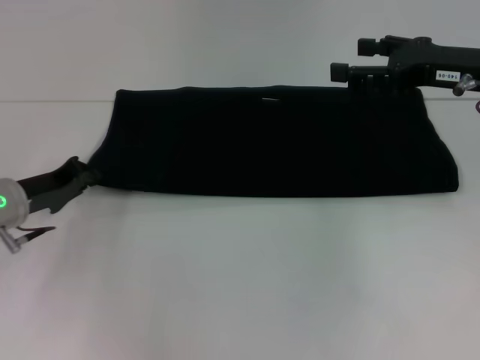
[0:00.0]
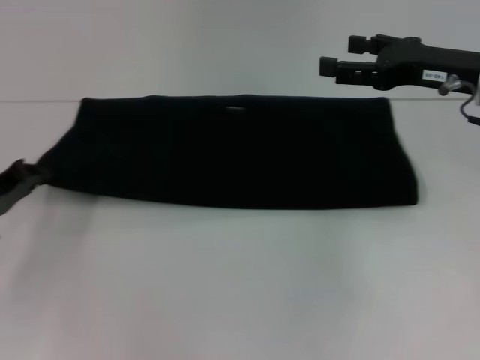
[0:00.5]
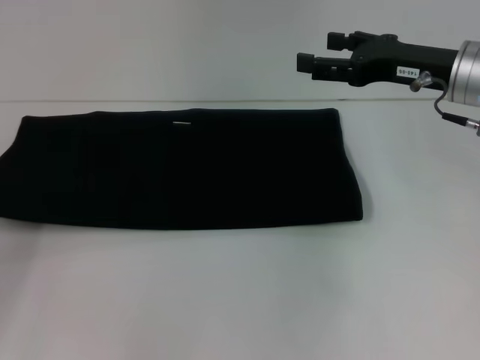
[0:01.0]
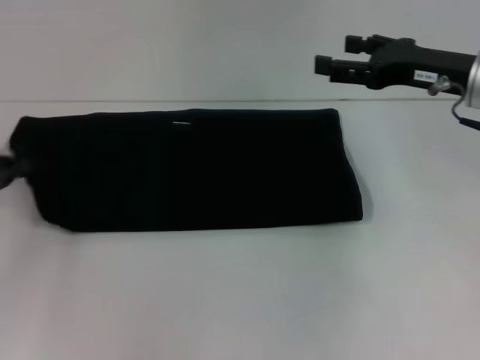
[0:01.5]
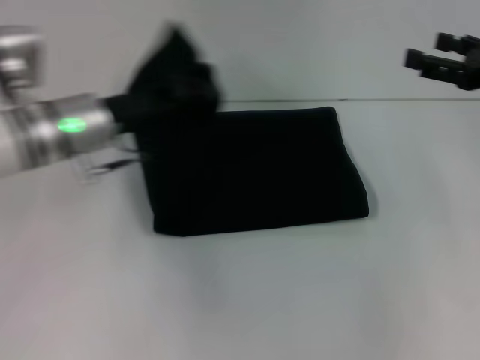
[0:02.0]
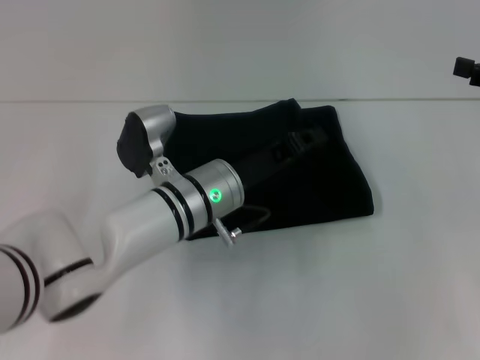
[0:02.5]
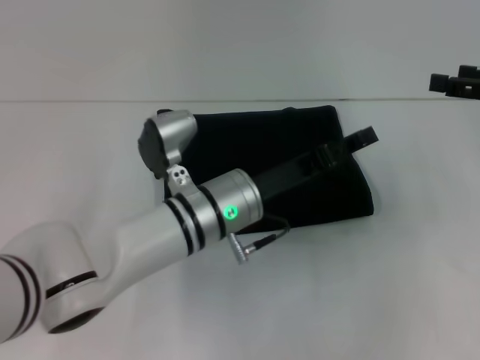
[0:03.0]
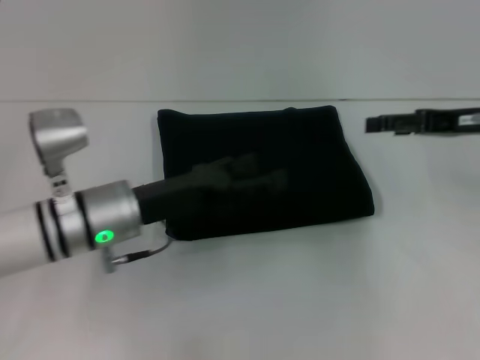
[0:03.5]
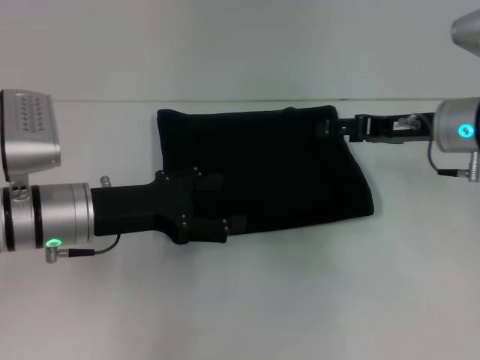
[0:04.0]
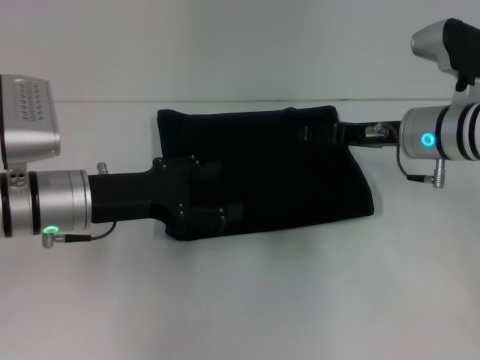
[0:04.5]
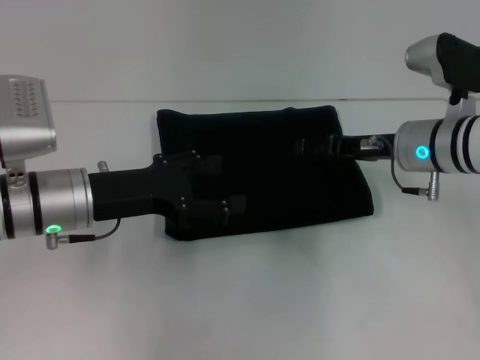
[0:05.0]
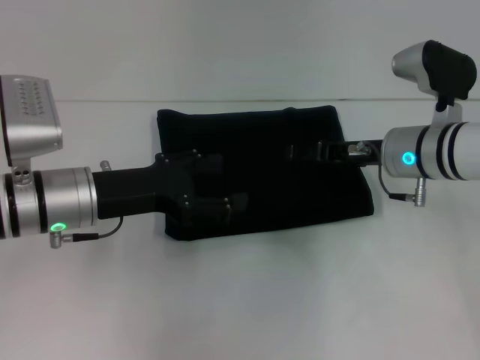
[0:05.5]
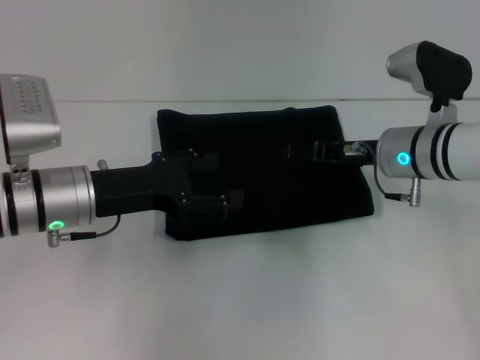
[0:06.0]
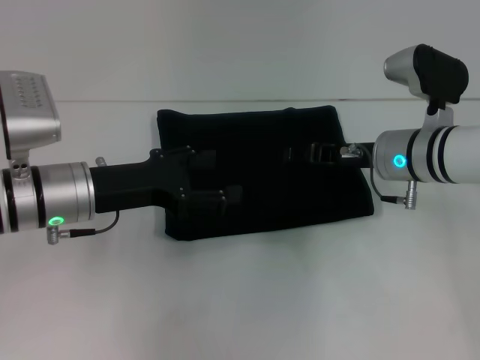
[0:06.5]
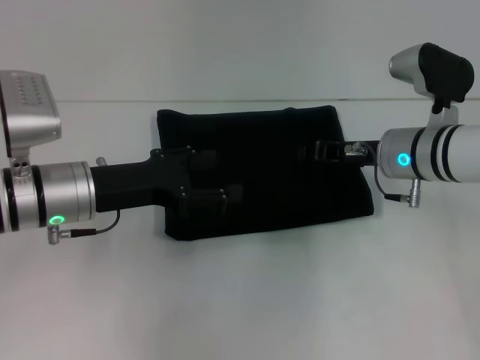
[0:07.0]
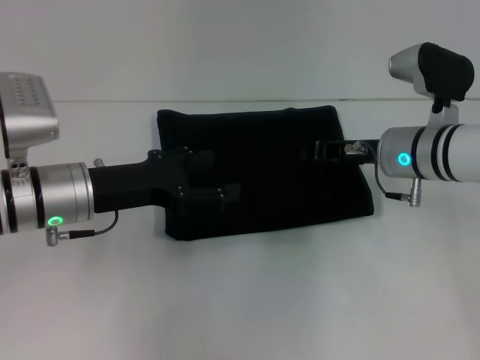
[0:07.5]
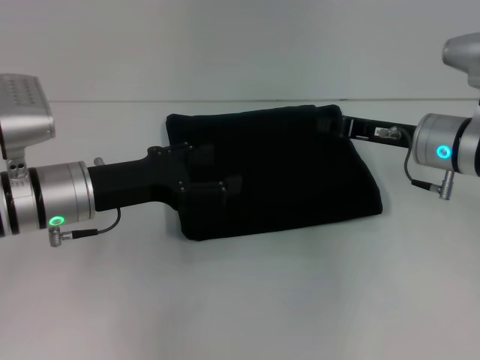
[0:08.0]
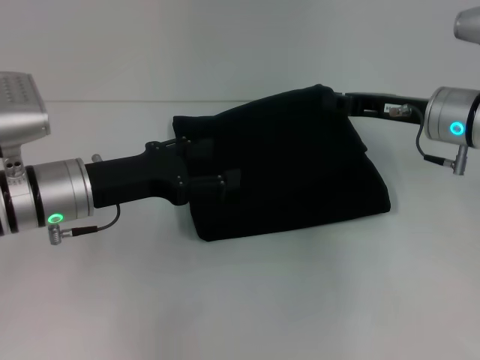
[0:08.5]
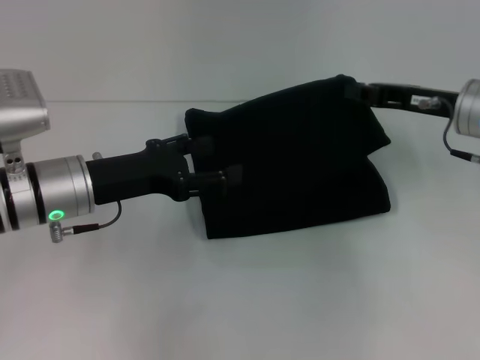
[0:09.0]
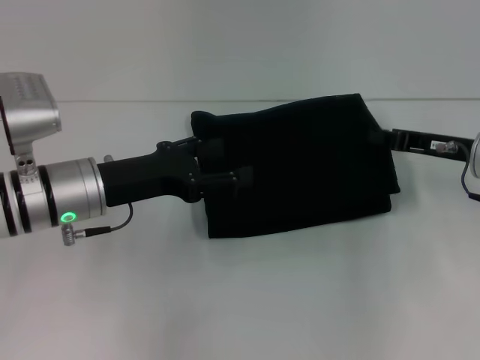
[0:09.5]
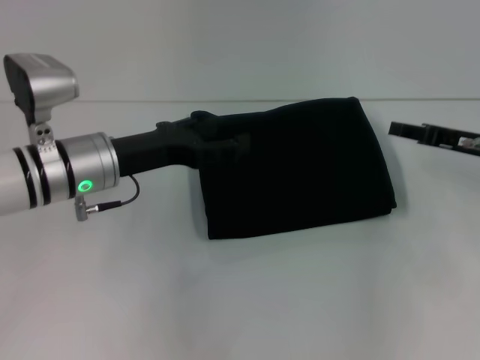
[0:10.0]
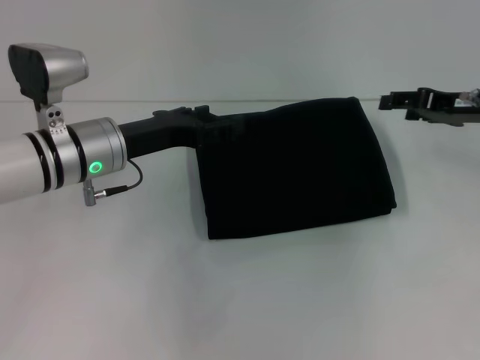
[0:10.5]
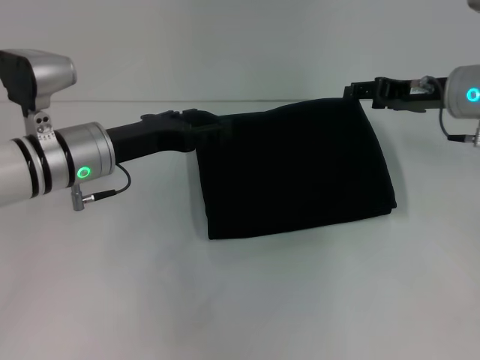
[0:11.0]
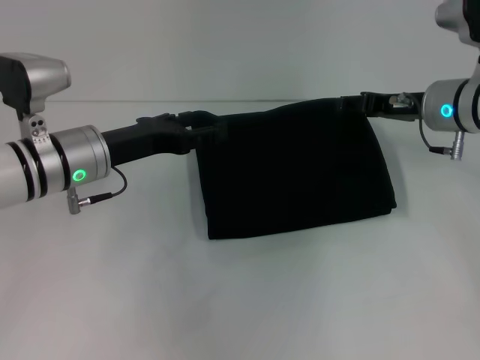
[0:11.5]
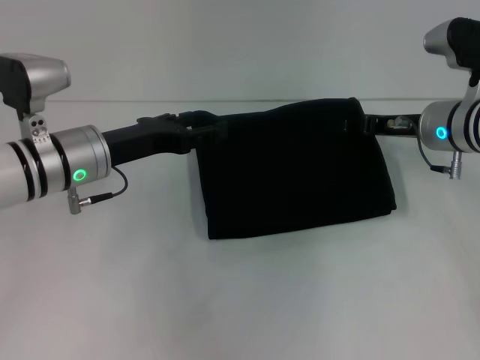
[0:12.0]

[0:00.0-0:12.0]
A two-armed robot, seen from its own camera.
Step, 0:00.0 to 0:02.5: Fold the clothes with your left hand.
0:00.0 to 0:02.0: The left gripper is displaced to the right and upward by approximately 15 cm. Meanwhile the right gripper heads to the right, covering some 5 cm.
0:02.0 to 0:04.0: The left gripper heads backward, covering approximately 5 cm, reaches roughly 15 cm to the right, then returns, and opens; the right gripper is displaced to the left by approximately 10 cm.
0:04.0 to 0:06.0: The right gripper shifts about 5 cm to the left.
0:06.0 to 0:08.0: The right gripper closes up.
0:08.0 to 0:10.0: The right gripper shifts some 10 cm to the right.
0:10.0 to 0:12.0: The right gripper travels to the left by approximately 10 cm, and opens its fingers.

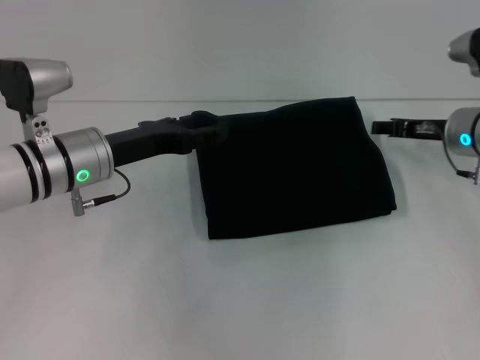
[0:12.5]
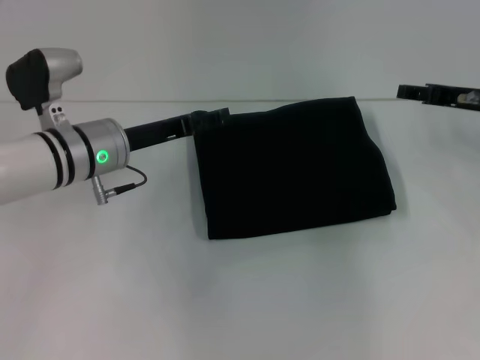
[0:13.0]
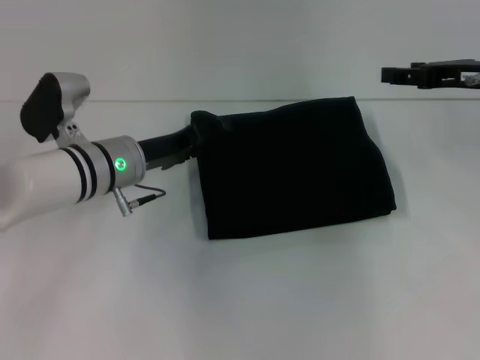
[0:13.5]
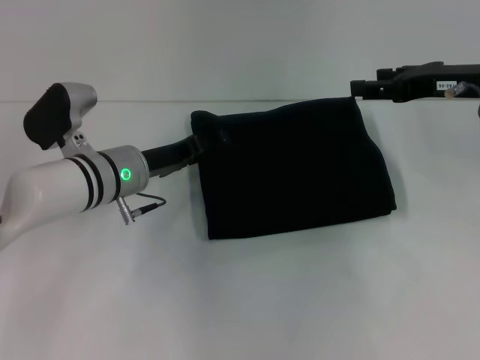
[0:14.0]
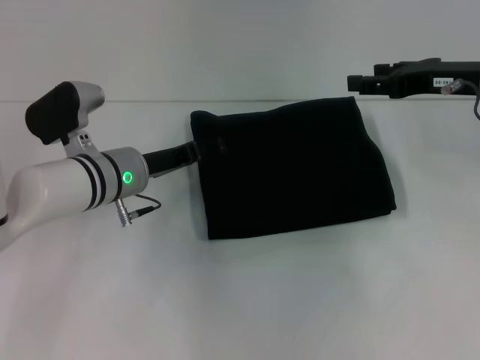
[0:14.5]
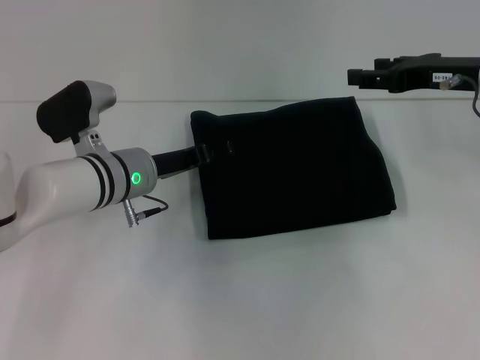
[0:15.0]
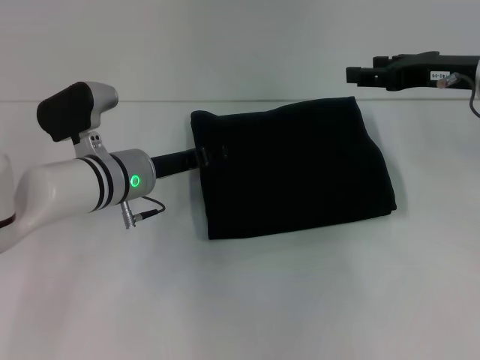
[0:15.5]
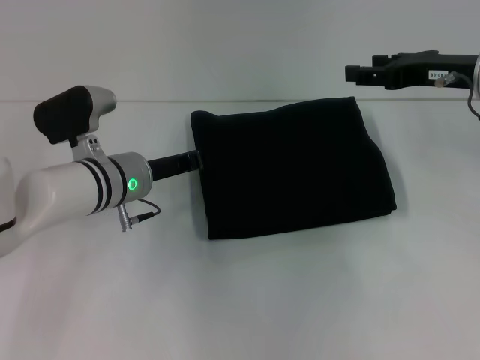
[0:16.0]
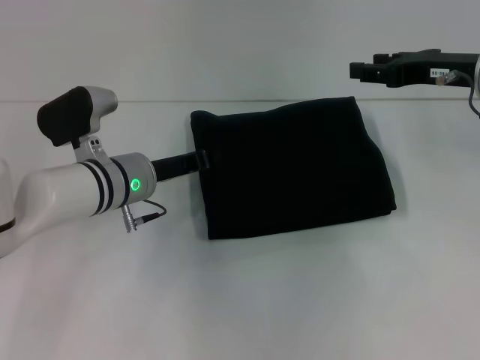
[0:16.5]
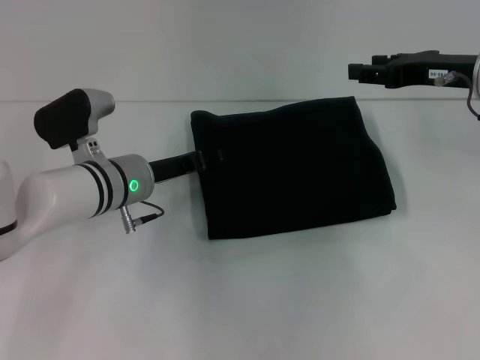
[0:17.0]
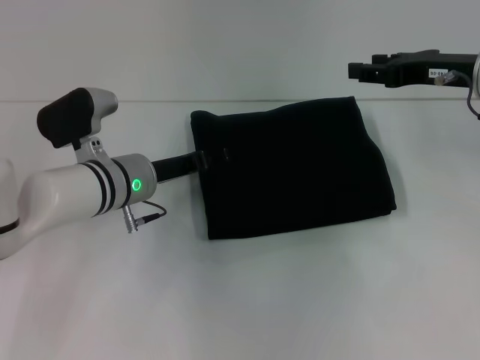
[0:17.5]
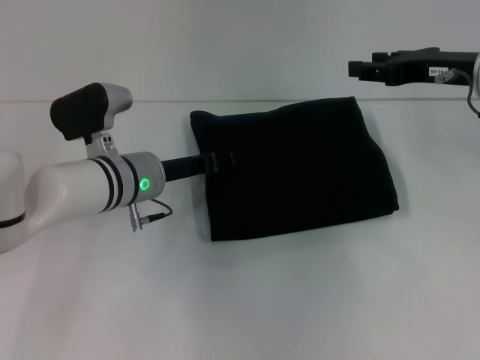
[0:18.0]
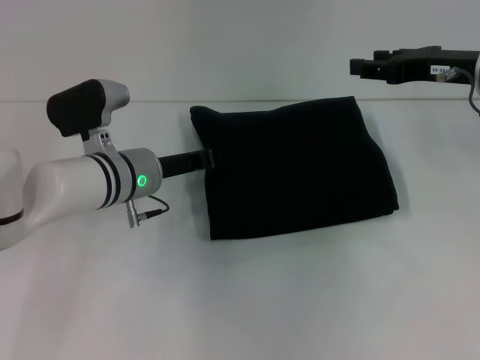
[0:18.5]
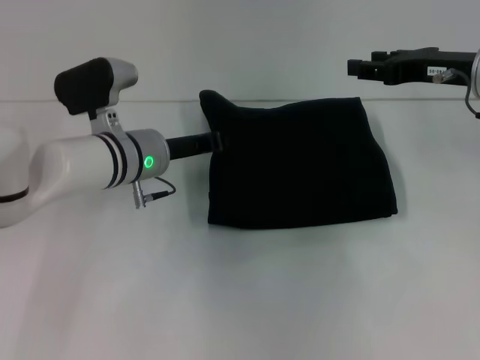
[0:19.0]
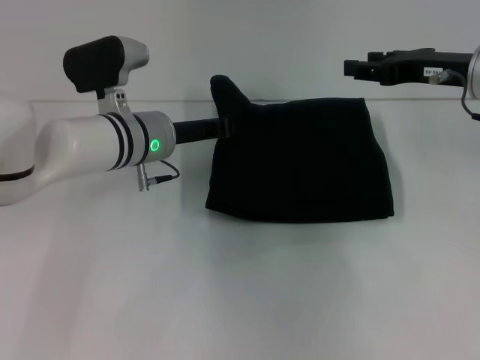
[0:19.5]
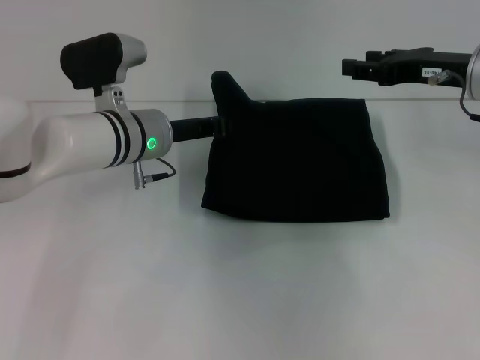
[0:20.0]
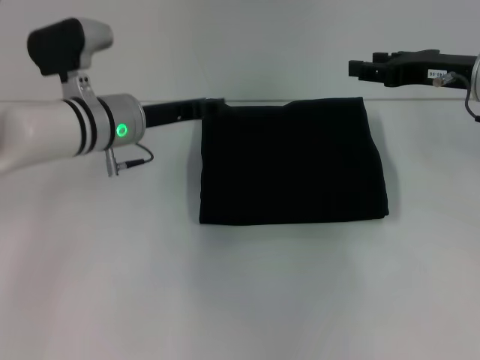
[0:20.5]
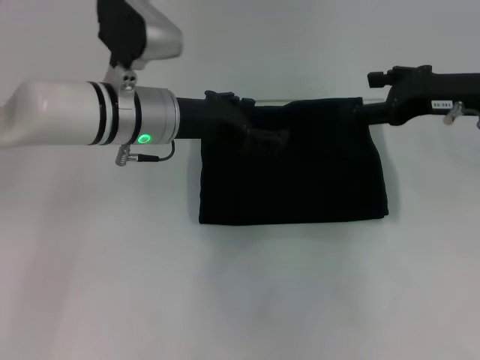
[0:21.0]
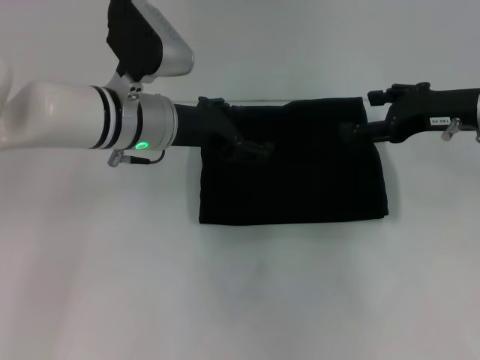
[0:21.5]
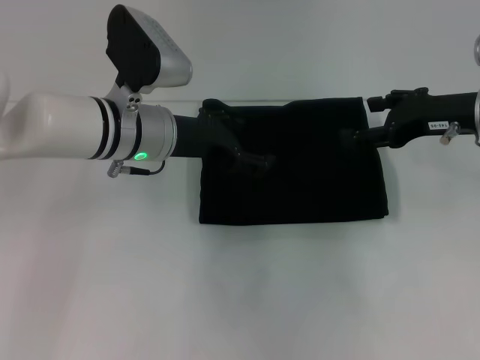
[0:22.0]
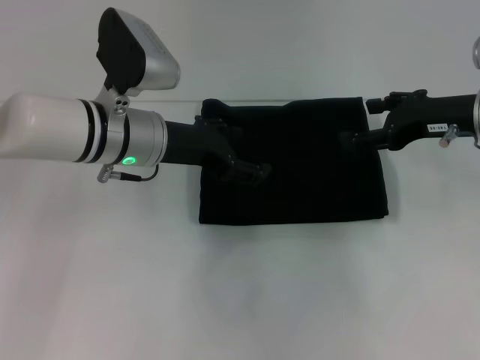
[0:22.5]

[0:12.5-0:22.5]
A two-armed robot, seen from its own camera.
0:12.5 to 0:14.5: The left gripper moves approximately 5 cm, while the right gripper moves upward, approximately 10 cm.
0:14.5 to 0:16.5: The left gripper closes.
0:16.5 to 0:18.5: The left gripper opens, then closes again.
0:18.5 to 0:20.5: The left gripper goes roughly 5 cm upward.
0:20.5 to 0:22.5: The left gripper opens.

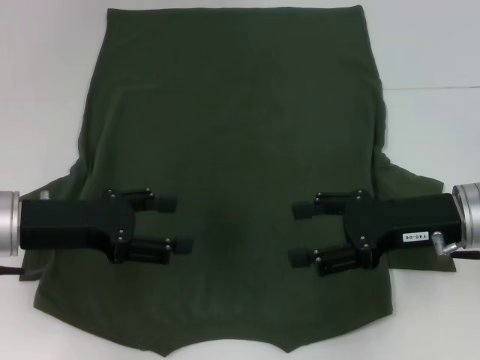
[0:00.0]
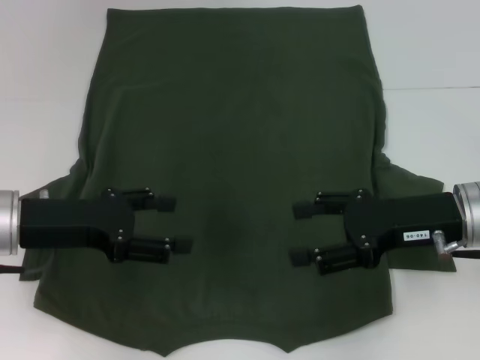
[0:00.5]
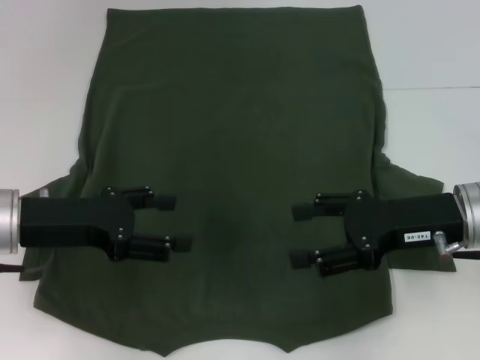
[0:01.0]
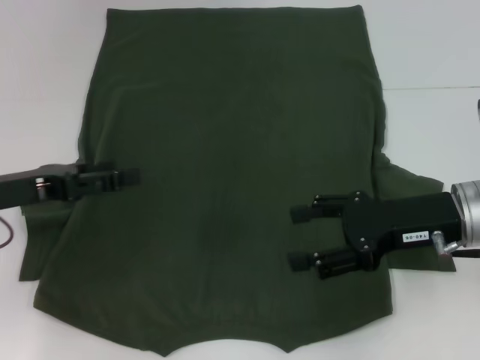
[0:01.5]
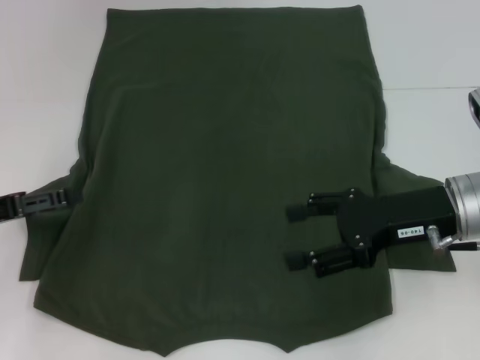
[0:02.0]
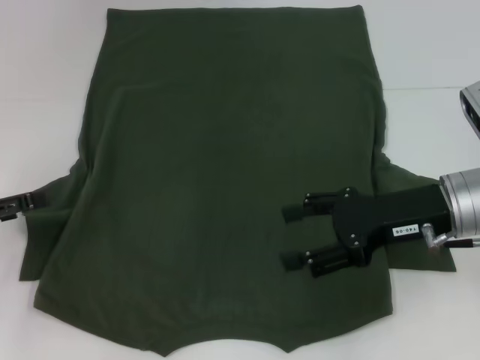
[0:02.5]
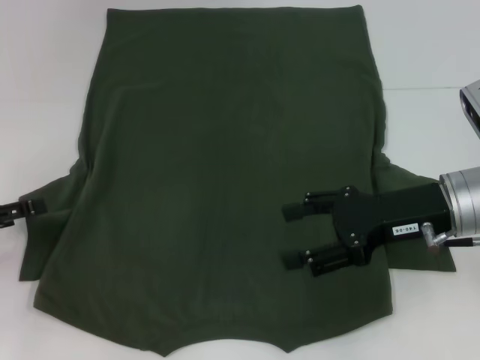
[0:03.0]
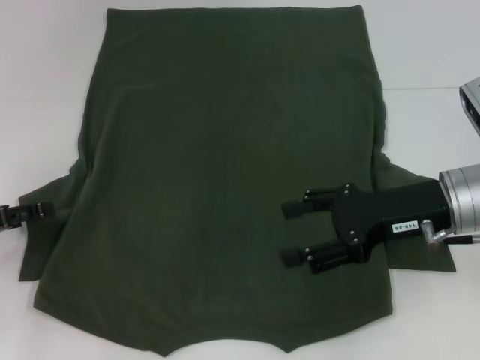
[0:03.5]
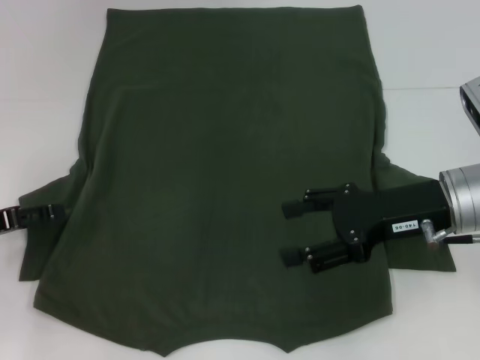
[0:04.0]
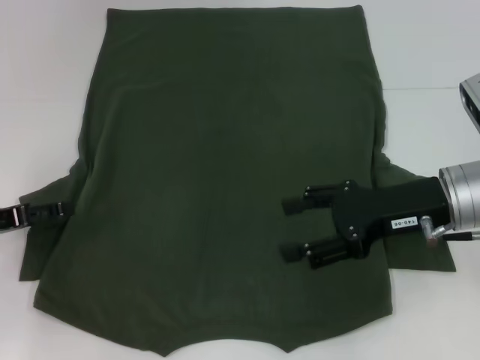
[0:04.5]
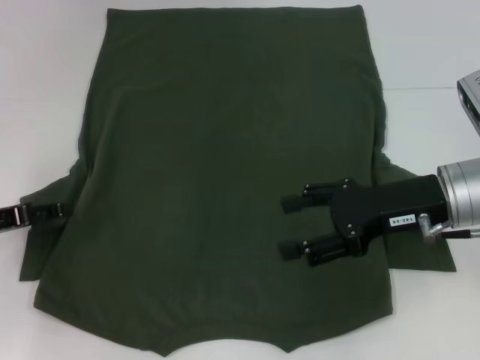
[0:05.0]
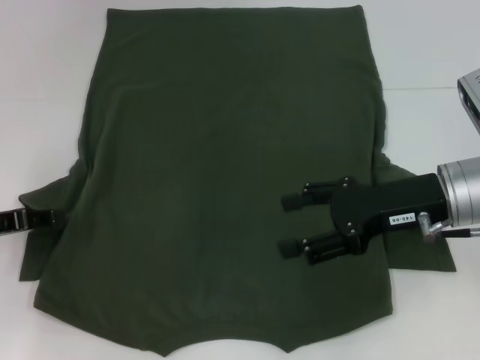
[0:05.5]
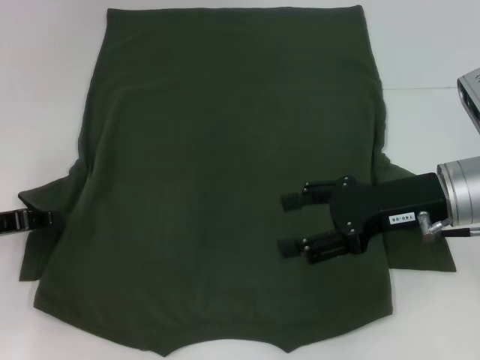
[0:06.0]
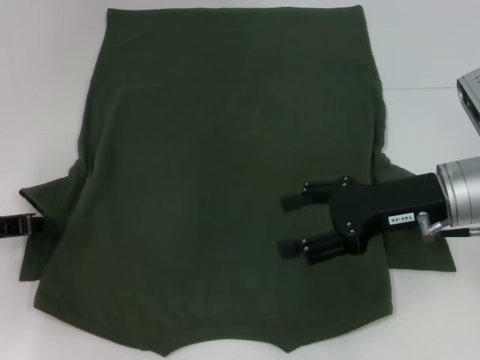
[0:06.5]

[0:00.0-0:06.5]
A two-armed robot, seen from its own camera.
0:00.0 to 0:02.0: The left gripper shifts approximately 10 cm to the left.
0:02.0 to 0:04.5: There are only small adjustments of the grippers.
0:04.5 to 0:06.5: The left gripper closes up.
